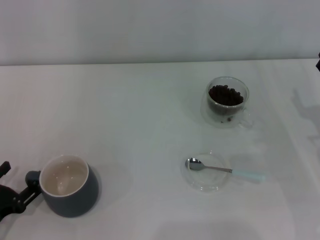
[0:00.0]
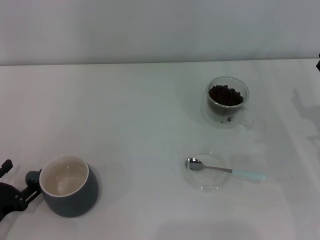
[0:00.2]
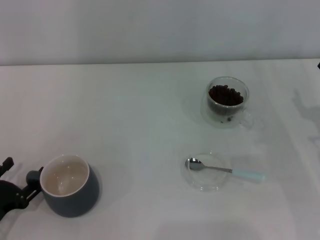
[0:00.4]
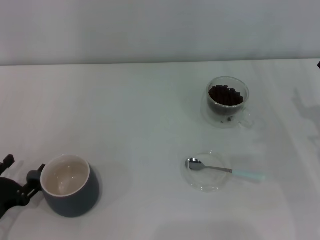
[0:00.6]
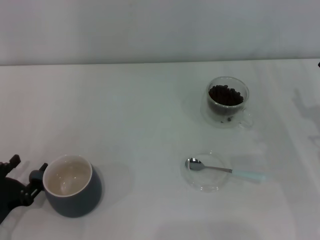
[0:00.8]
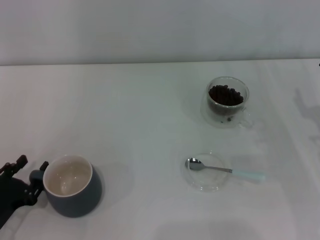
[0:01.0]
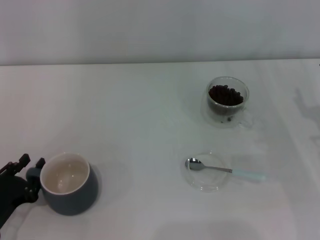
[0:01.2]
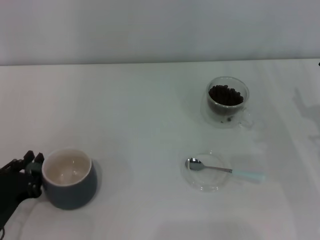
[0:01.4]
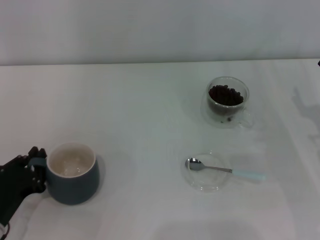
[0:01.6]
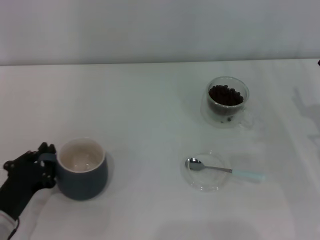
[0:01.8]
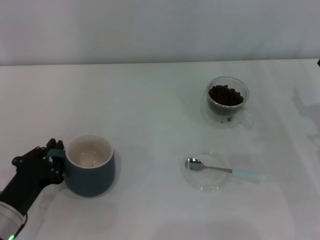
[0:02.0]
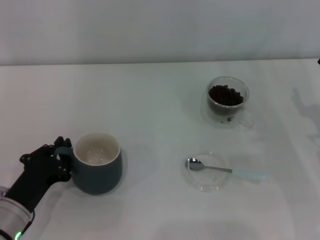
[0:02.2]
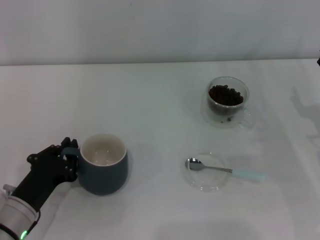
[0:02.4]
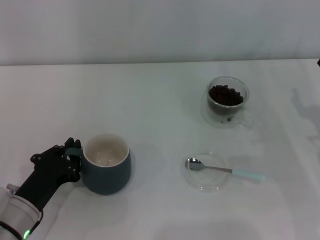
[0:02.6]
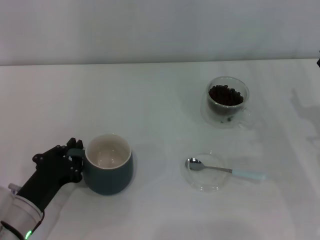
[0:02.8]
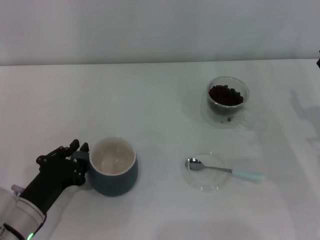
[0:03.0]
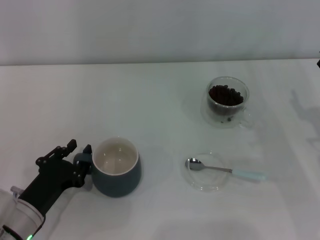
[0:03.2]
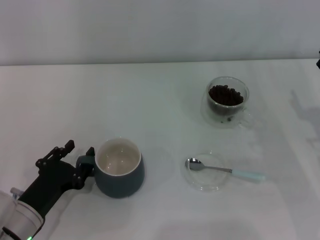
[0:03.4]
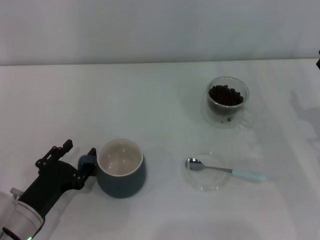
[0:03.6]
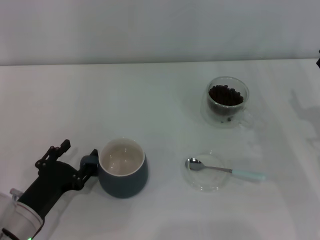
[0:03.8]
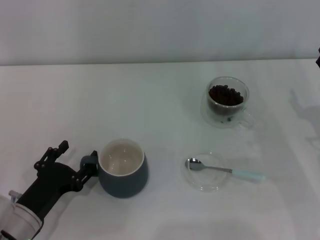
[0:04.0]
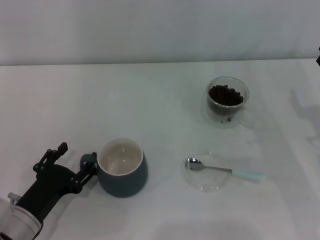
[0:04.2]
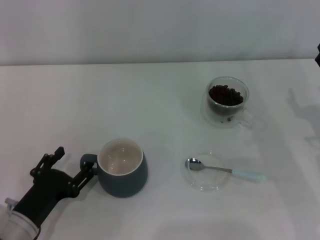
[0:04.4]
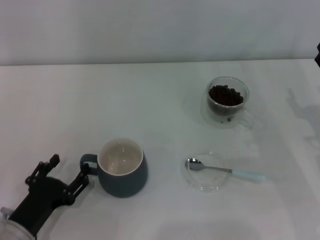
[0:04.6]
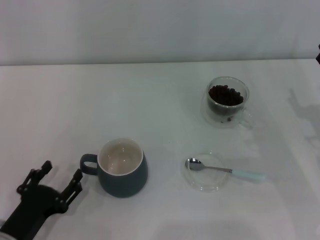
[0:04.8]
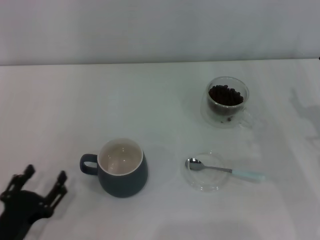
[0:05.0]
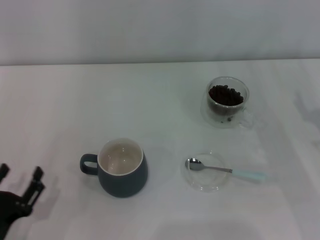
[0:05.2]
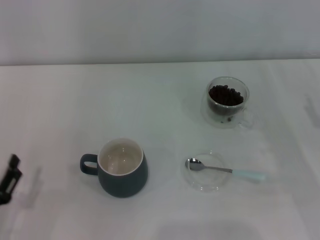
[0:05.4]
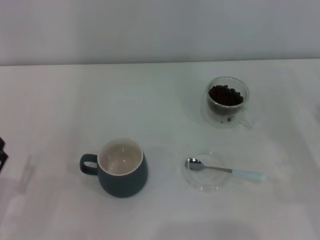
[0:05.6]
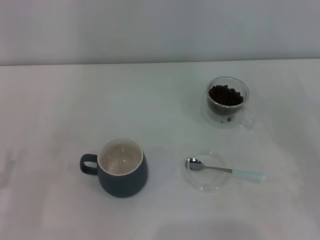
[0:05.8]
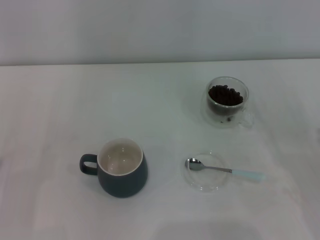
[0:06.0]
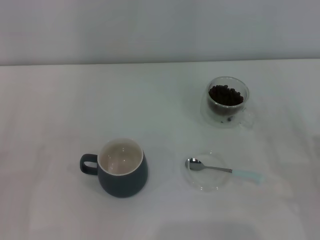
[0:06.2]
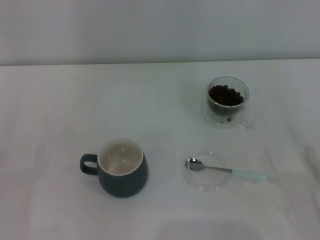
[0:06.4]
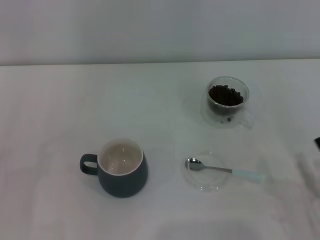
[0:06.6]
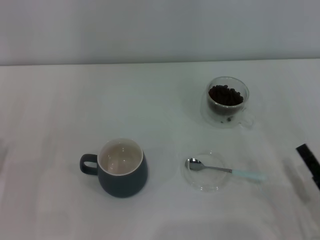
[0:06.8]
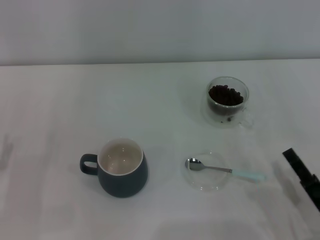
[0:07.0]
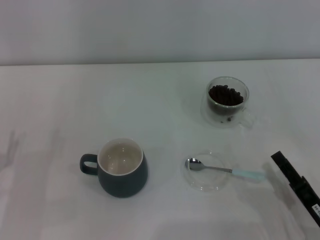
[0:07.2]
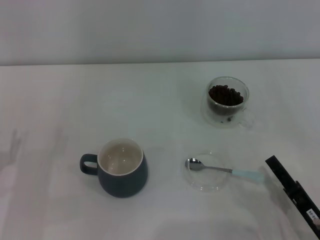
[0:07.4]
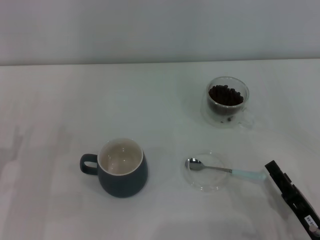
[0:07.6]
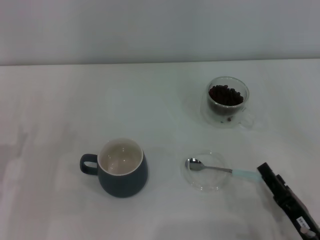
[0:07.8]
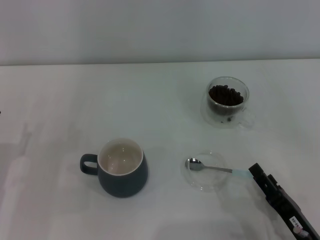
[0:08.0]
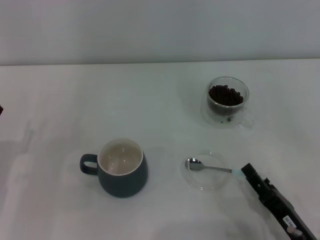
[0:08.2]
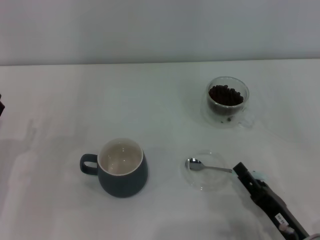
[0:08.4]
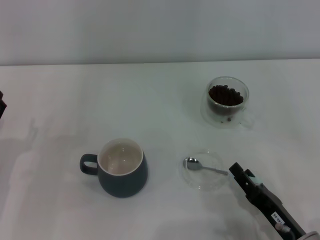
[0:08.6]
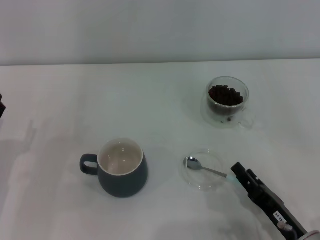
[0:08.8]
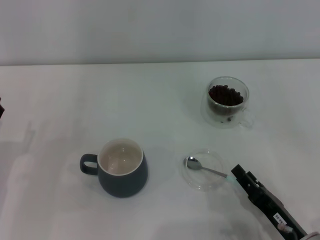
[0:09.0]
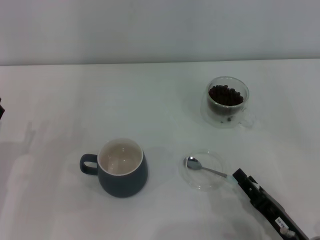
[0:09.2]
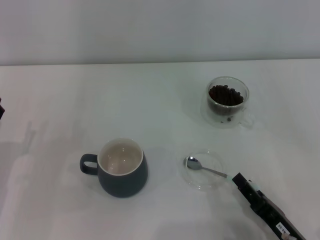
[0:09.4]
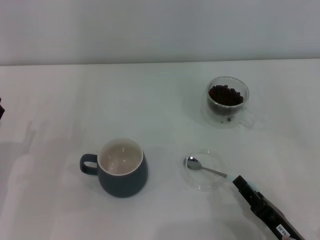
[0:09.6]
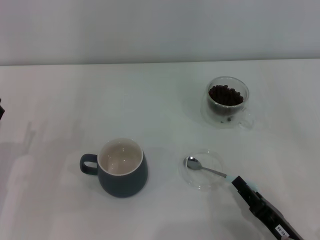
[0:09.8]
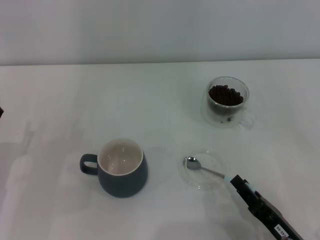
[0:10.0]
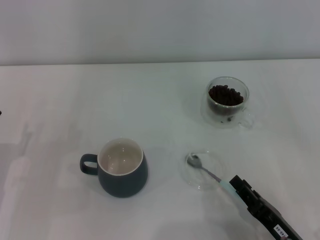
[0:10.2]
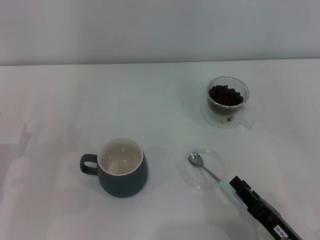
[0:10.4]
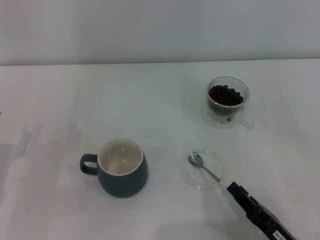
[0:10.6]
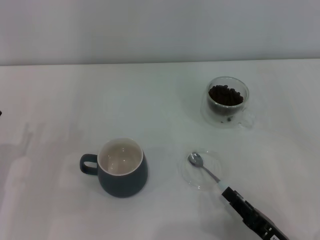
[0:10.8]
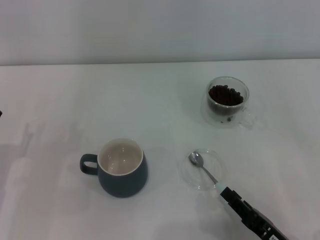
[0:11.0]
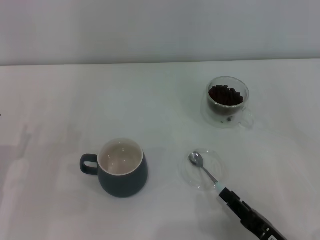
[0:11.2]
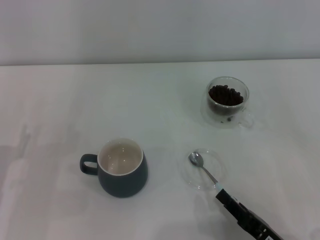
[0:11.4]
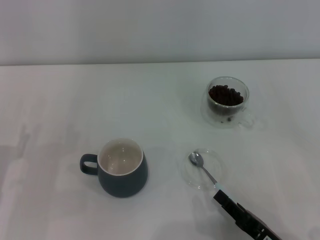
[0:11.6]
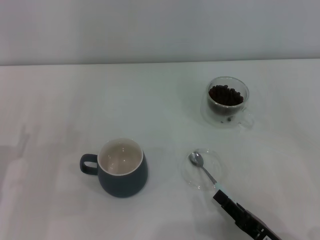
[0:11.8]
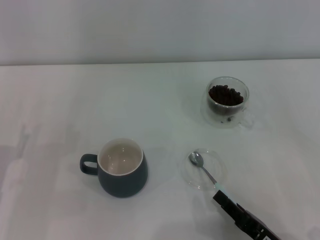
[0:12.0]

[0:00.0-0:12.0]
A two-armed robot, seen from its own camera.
Task of the whole recording: Use a blue spoon to take out the coffee beans from the glass and pour them into the gray cup.
Step, 0:00.0 to 0:05.0: Move the cup to the center of view with the left gripper.
0:00.0 to 0:01.6: The left gripper closes its fingers.
0:01.6 to 0:03.0: The left gripper moves to the right, roughly 5 cm.
0:03.0 to 0:04.4: The left gripper opens up.
0:04.4 to 0:06.0: The left gripper shifts approximately 10 cm to the left.
0:06.0 to 0:07.6: The right gripper moves to the left and backward, some 10 cm.
0:07.6 to 0:10.4: There are only small adjustments of the grippers.
0:10.4 to 0:12.0: The grippers stay close to where they were, moving slightly.

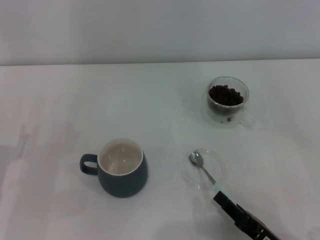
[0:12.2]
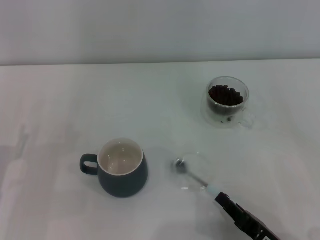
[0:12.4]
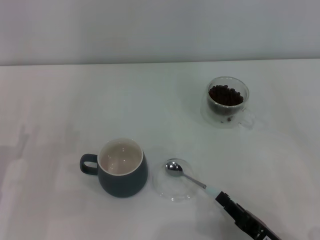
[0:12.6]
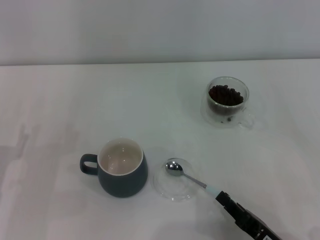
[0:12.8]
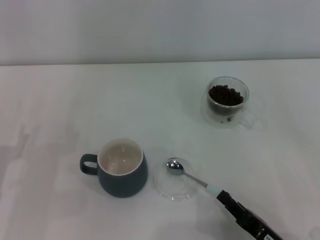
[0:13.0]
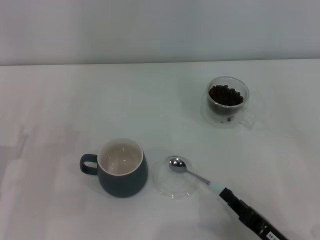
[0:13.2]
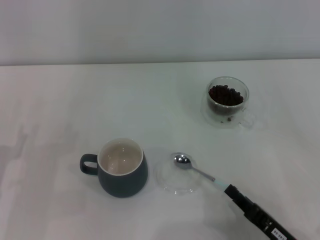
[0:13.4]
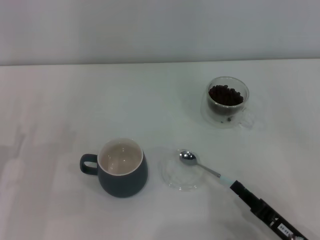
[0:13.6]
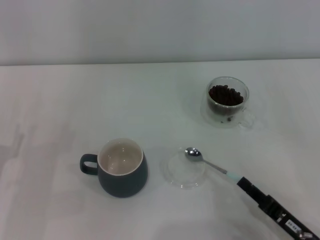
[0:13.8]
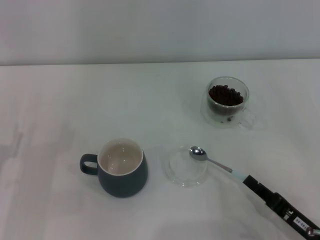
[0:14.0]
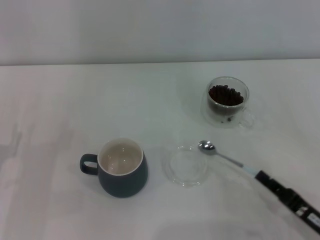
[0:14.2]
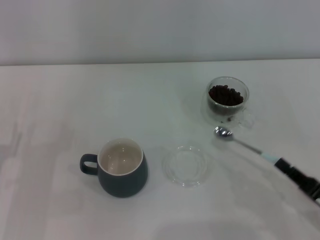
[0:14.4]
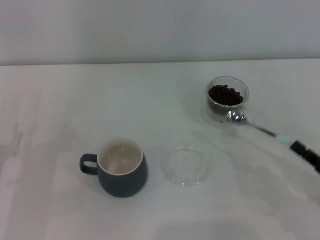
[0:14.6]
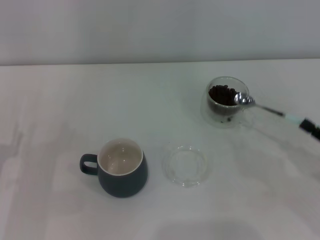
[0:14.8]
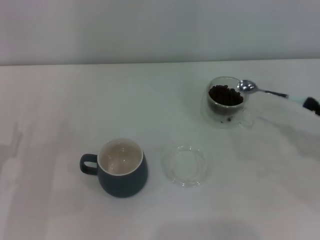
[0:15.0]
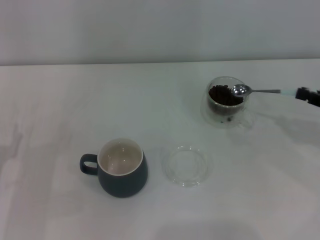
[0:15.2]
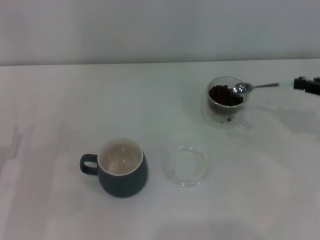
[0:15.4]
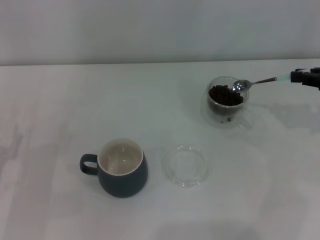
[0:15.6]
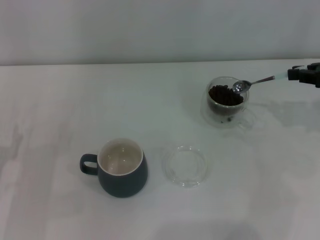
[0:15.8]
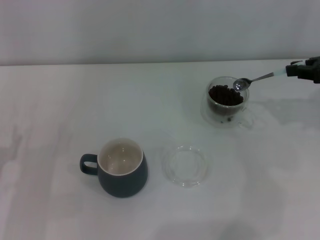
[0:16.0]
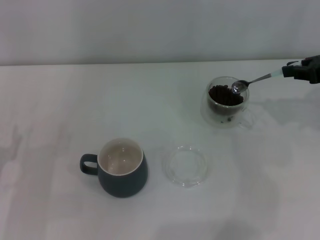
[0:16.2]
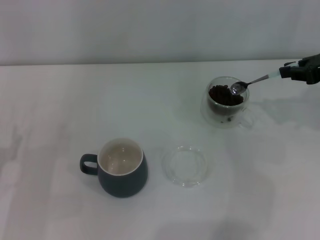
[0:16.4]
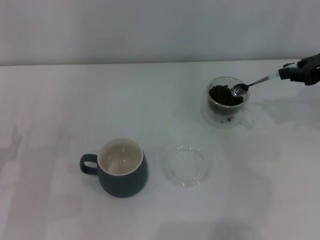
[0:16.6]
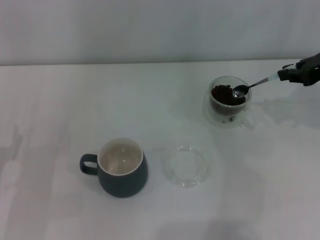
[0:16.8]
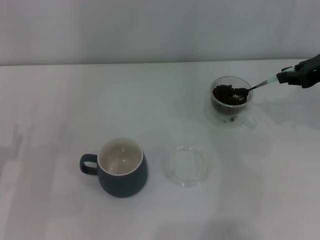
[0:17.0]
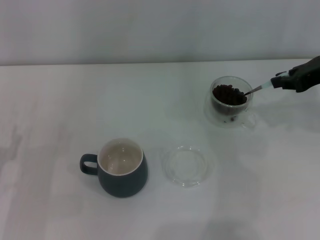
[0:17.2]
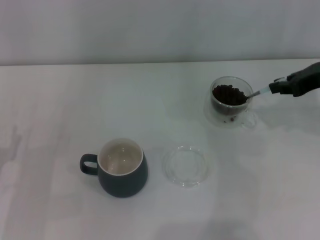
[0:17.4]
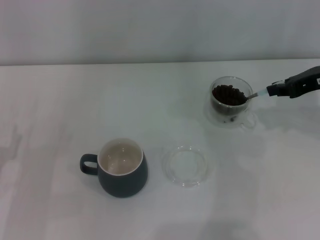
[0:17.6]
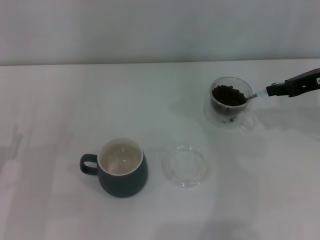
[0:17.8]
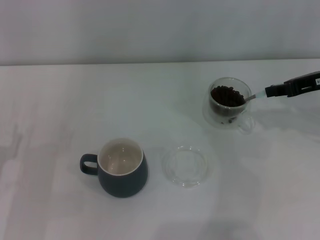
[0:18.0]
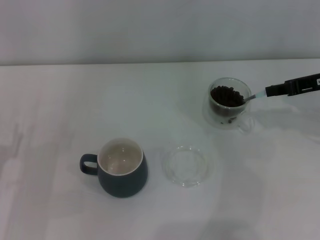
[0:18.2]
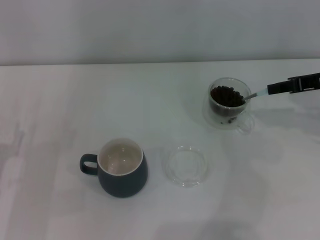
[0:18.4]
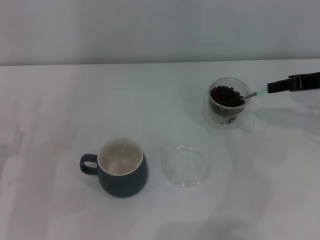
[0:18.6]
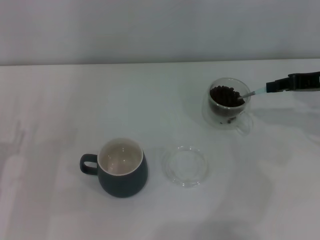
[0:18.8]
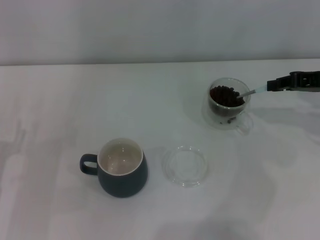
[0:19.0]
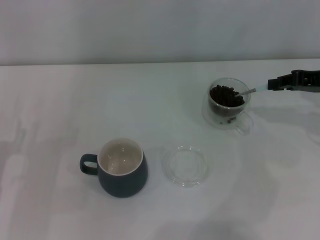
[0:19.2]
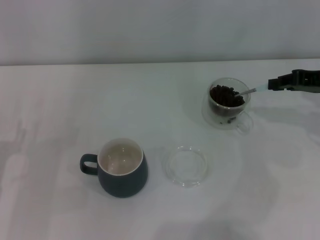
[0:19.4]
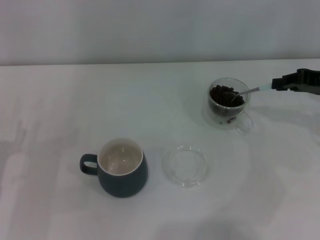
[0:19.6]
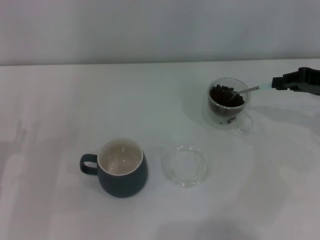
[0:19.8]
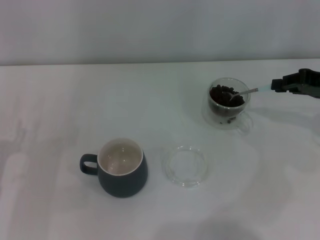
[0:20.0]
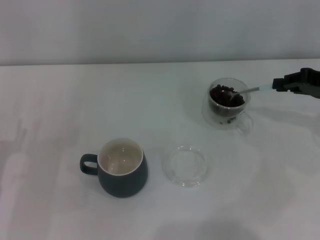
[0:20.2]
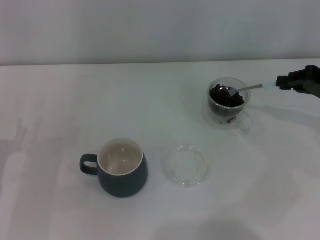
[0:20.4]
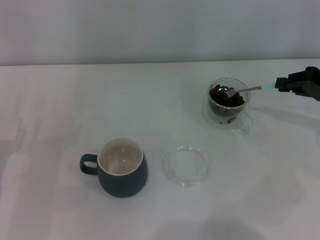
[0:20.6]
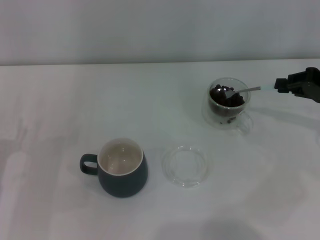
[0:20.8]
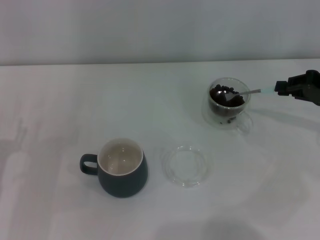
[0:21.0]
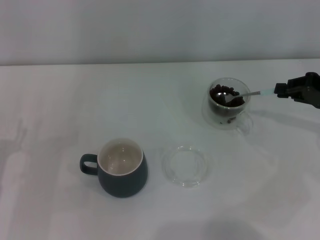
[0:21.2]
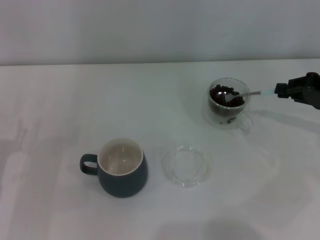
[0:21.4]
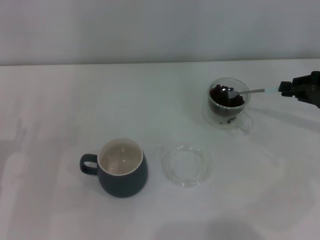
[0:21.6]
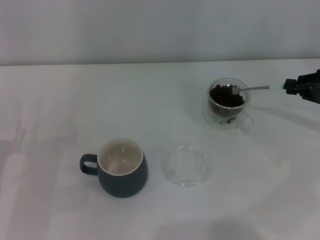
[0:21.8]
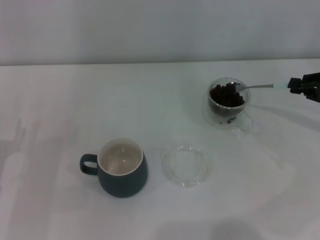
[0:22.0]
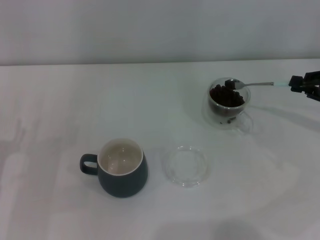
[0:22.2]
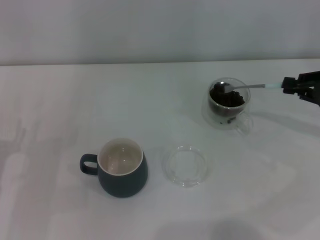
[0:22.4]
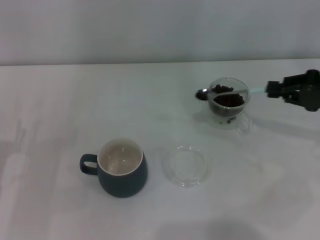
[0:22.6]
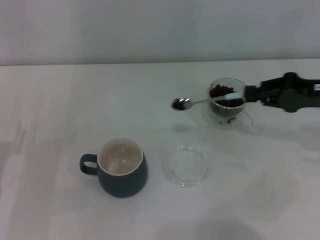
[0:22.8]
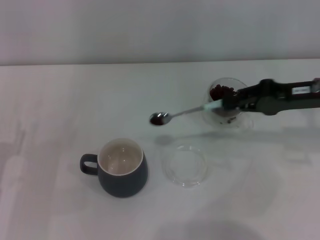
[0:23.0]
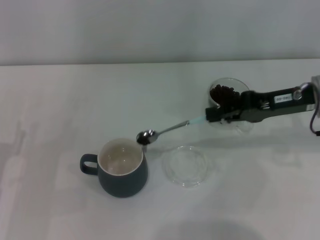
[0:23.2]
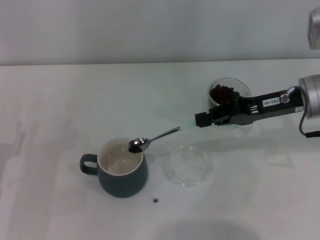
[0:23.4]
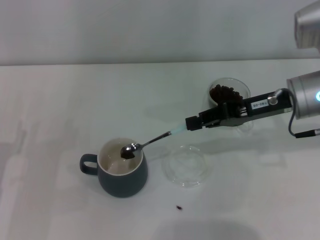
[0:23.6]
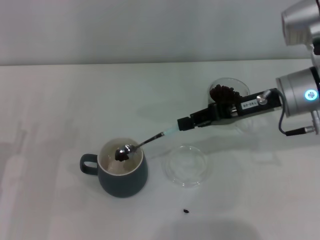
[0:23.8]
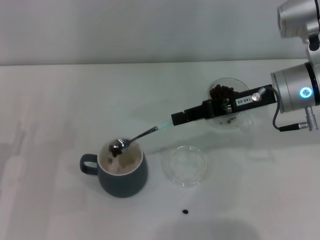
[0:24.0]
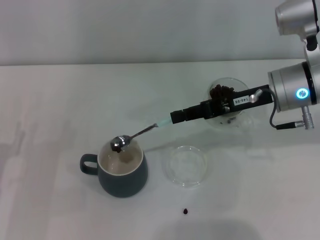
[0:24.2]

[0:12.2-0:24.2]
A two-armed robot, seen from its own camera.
Task of the whole recording: Use a blue spoon to take out the coffee beans from the glass and pour them into the gray cup.
Step, 0:12.2 to 0:14.2: Pick up the spoon with the right gripper.
0:12.2 to 0:13.8: The grippers make only small movements.
0:13.8 to 0:15.2: The right gripper goes about 25 cm forward, to the right and upward.
0:15.2 to 0:16.6: The right gripper moves upward and forward, approximately 10 cm.
0:16.6 to 0:18.2: The grippers make only small movements.
0:19.8 to 0:21.2: The grippers make only small movements.
0:21.2 to 0:22.6: The grippers make only small movements.
0:22.6 to 0:24.2: The right gripper moves to the left, approximately 15 cm.
